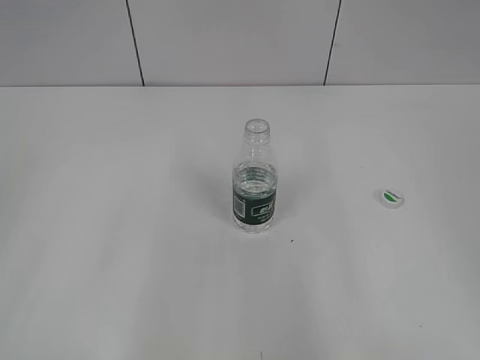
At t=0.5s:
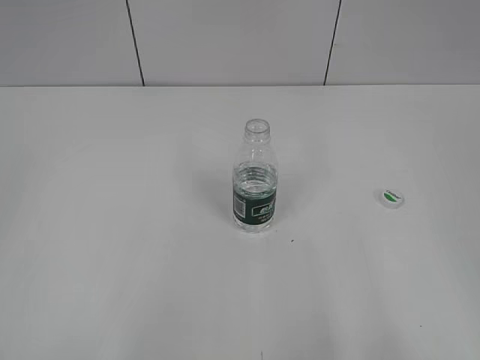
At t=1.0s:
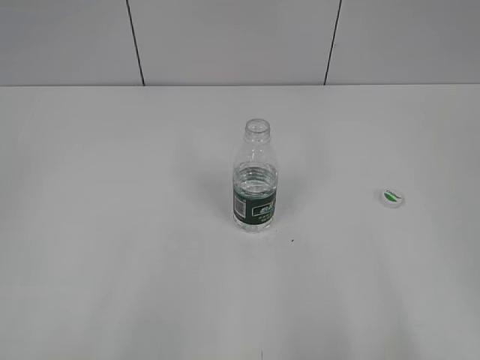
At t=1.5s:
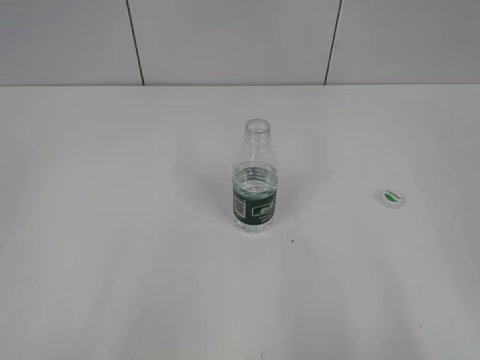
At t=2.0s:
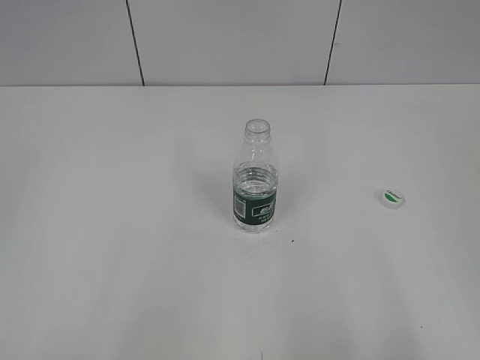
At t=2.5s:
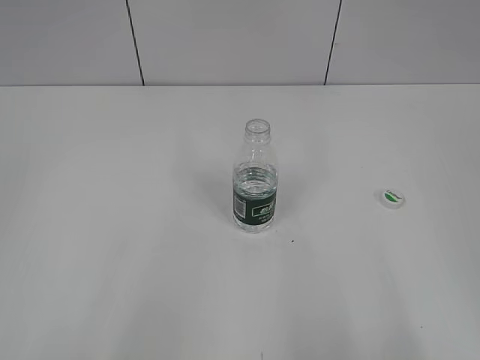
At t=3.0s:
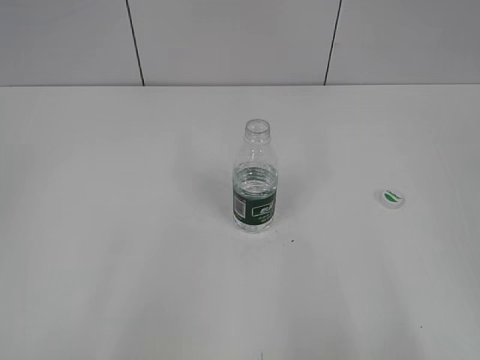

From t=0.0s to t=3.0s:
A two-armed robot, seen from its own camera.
From t=1.5s to t=3.0s: Both grippers stay put.
